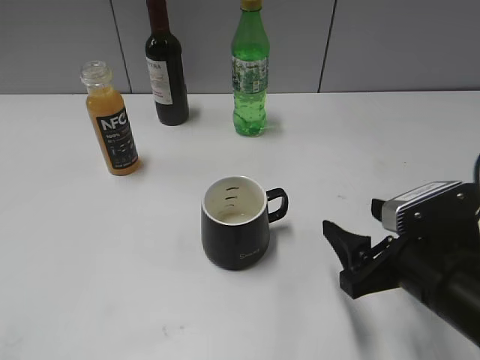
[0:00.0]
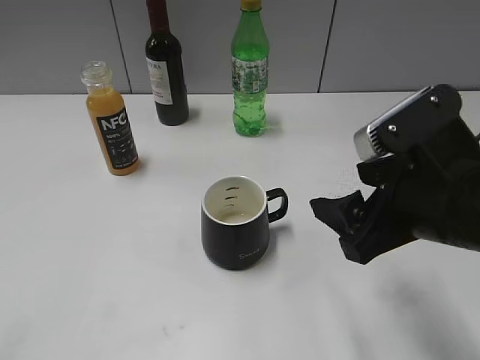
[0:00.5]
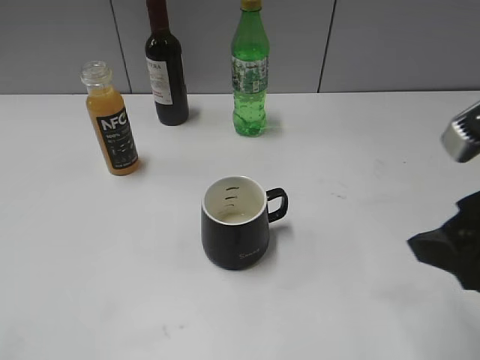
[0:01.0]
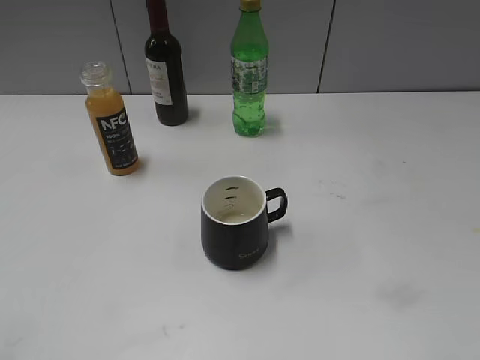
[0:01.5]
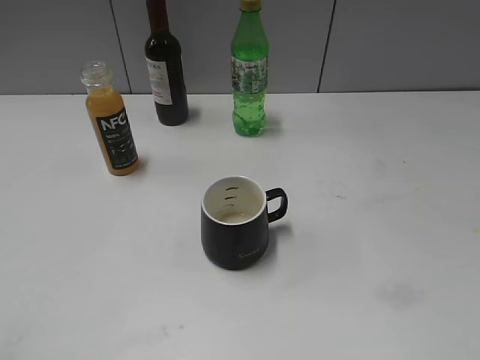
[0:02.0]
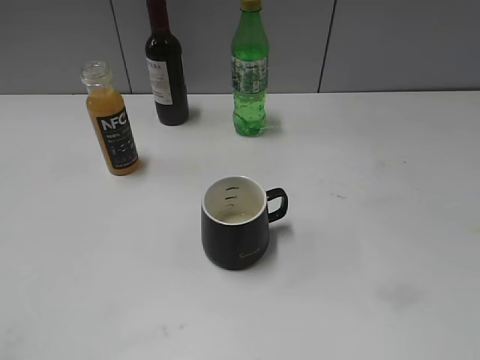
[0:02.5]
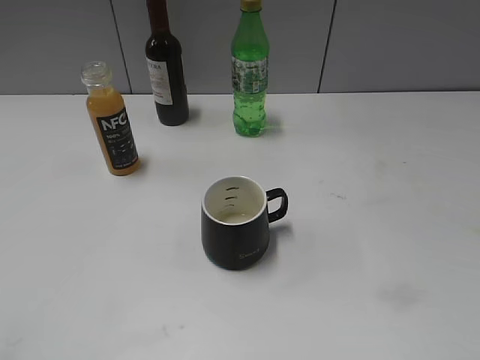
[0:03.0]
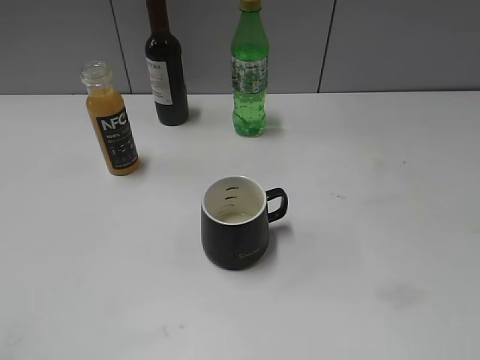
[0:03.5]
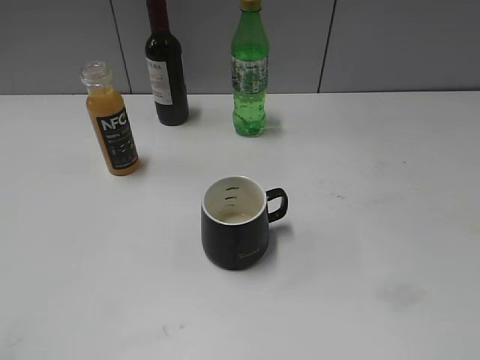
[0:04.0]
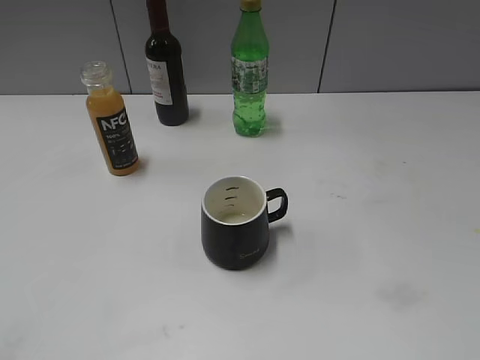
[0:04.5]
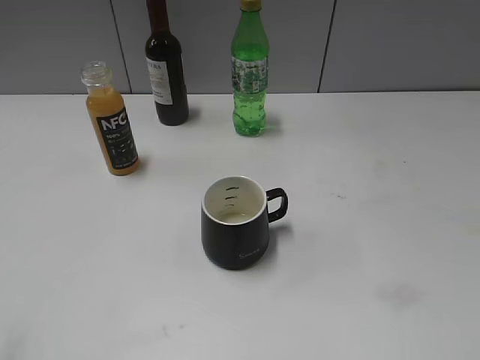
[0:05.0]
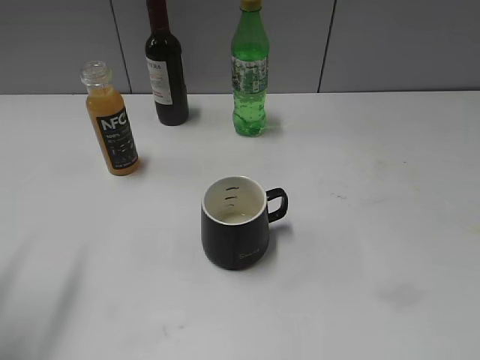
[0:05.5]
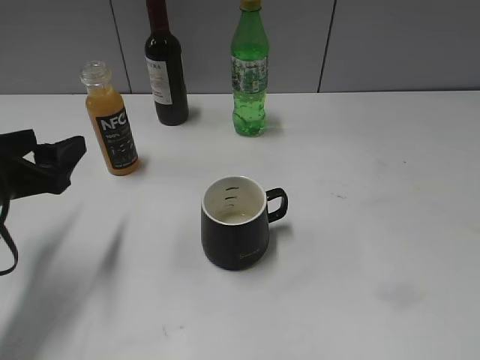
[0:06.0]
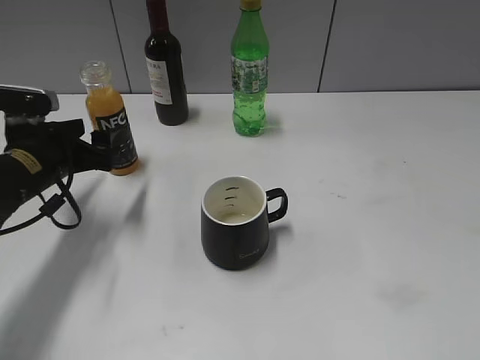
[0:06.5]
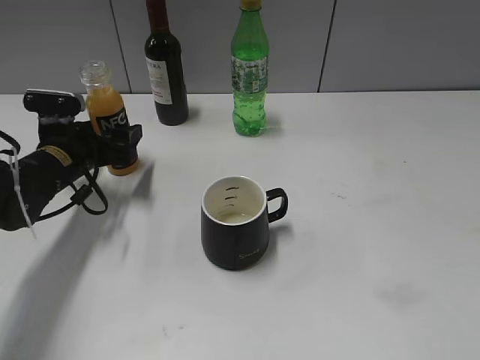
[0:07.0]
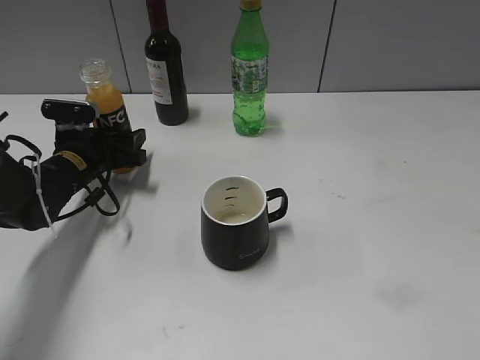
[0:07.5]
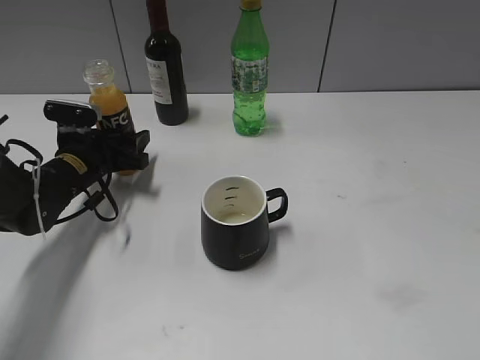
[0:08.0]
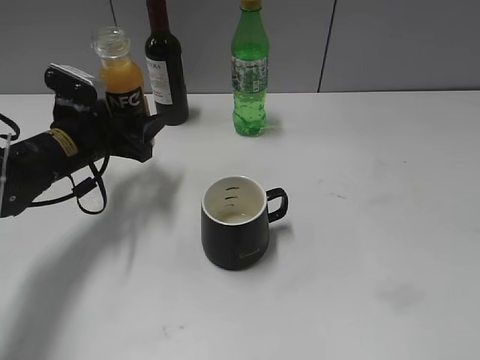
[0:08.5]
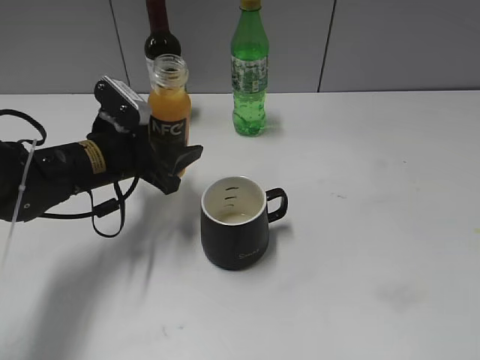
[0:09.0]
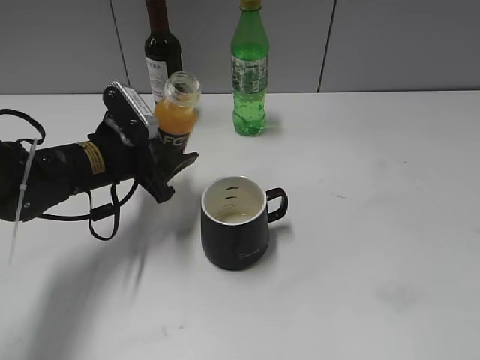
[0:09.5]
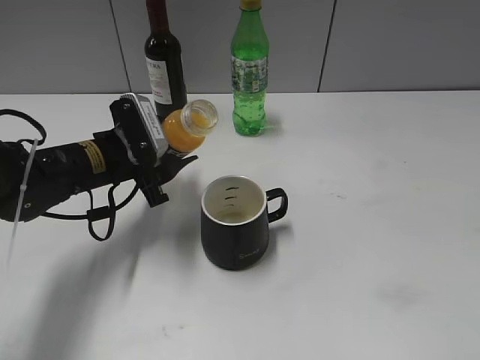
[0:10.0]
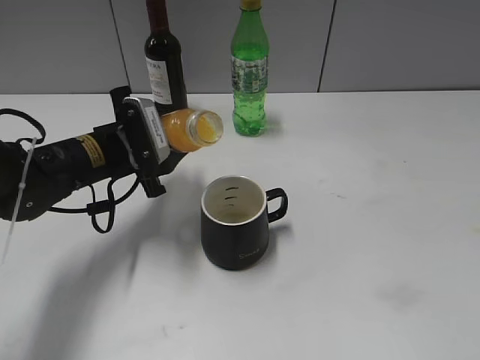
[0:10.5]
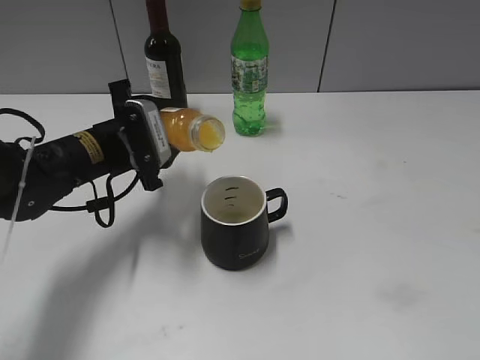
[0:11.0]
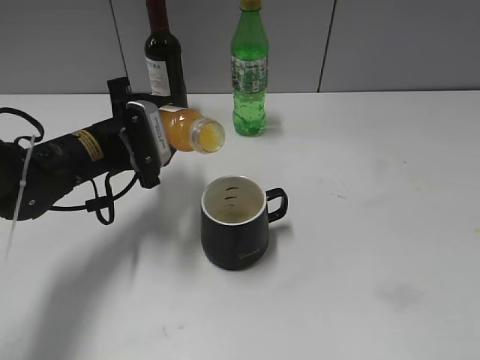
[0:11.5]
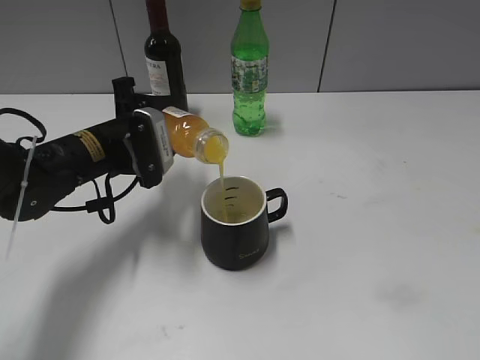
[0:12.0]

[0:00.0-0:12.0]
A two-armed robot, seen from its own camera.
Step, 0:00.0 to 0:08.0: Grasp the bottle with orange juice with left gripper.
0:00.0 to 0:02.0: The right gripper moves backward, upward and to the right, approximately 25 cm.
0:02.0 to 0:04.0: Both grippers stay put.
0:04.0 to 0:06.0: The left gripper shifts roughly 25 cm forward and downward, and opens.
0:06.0 to 0:08.0: The left gripper moves forward and downward, approximately 20 cm.
0:08.0 to 0:10.0: The left gripper travels to the right and upward by about 10 cm.

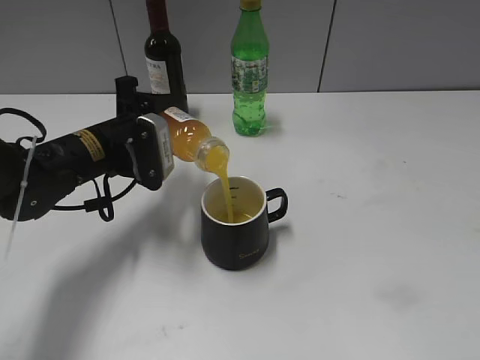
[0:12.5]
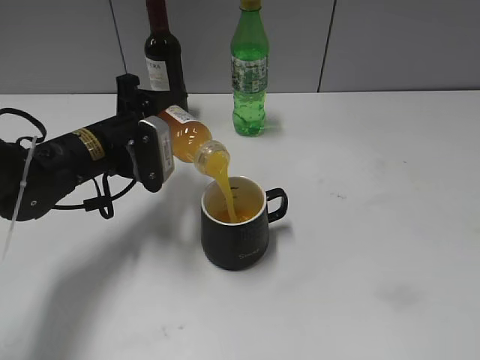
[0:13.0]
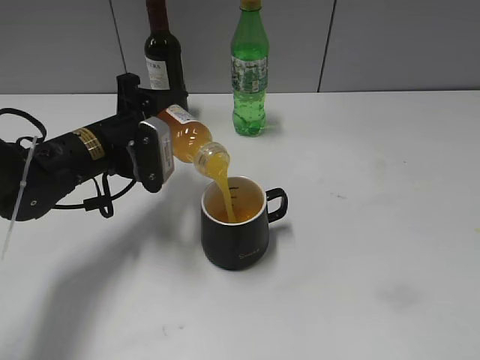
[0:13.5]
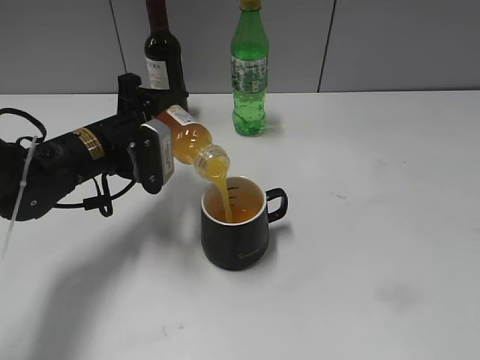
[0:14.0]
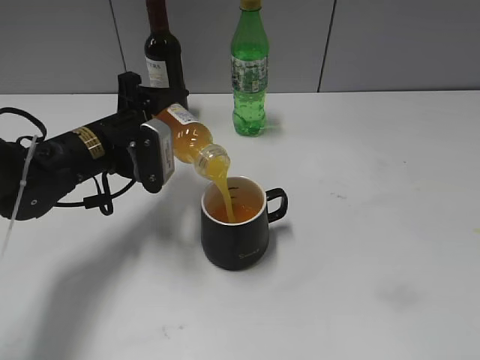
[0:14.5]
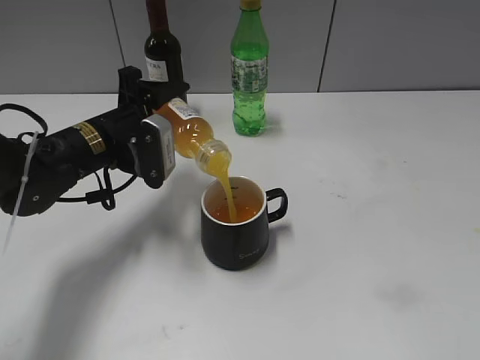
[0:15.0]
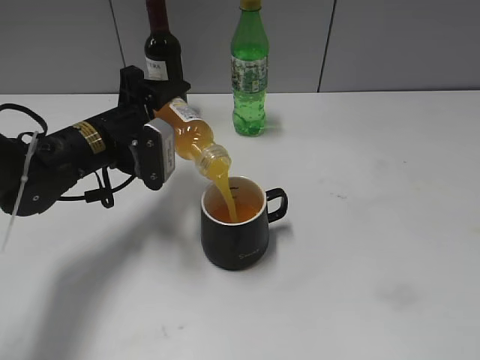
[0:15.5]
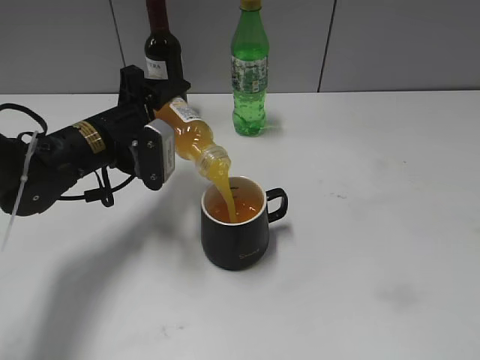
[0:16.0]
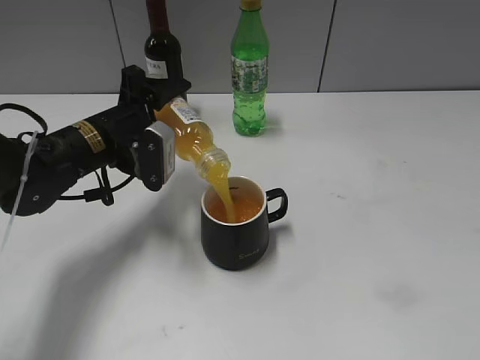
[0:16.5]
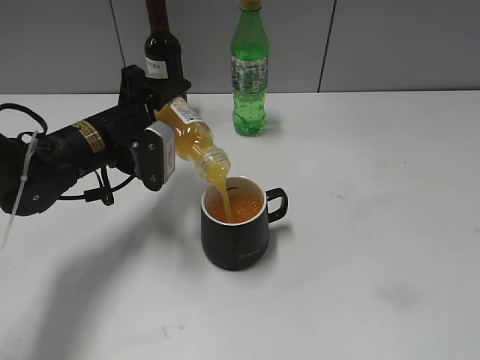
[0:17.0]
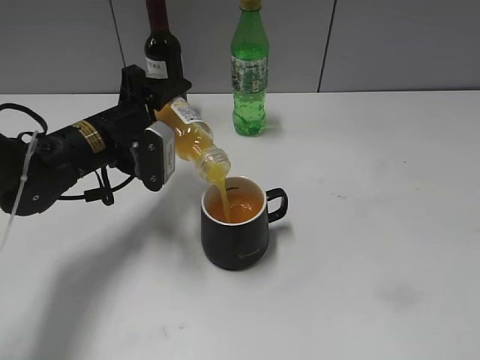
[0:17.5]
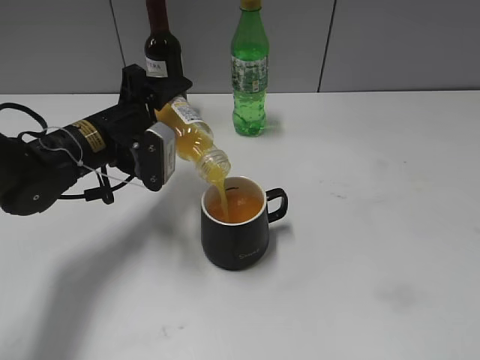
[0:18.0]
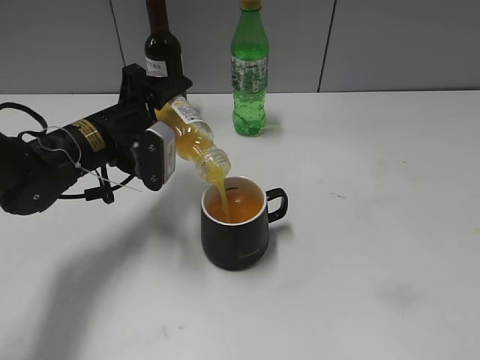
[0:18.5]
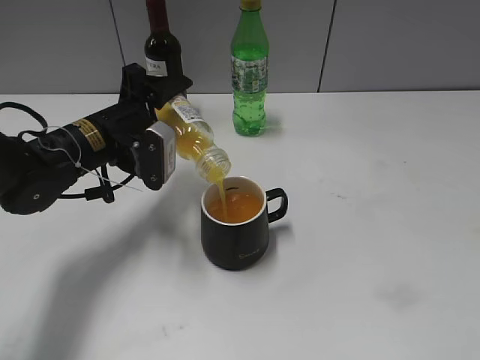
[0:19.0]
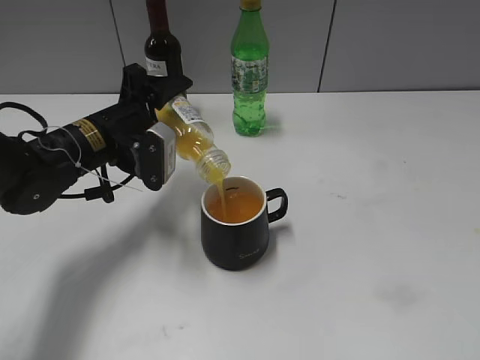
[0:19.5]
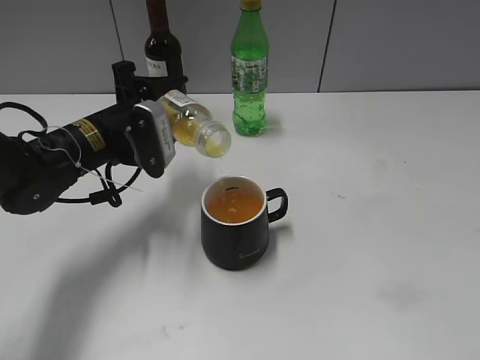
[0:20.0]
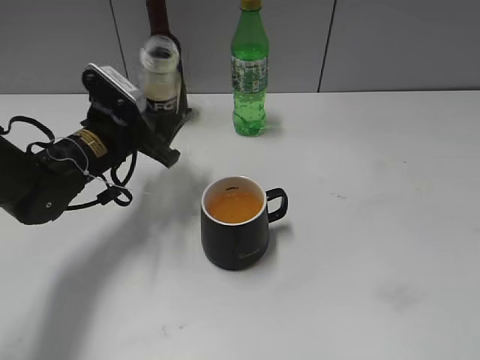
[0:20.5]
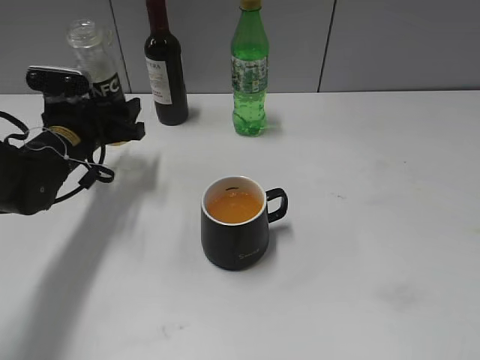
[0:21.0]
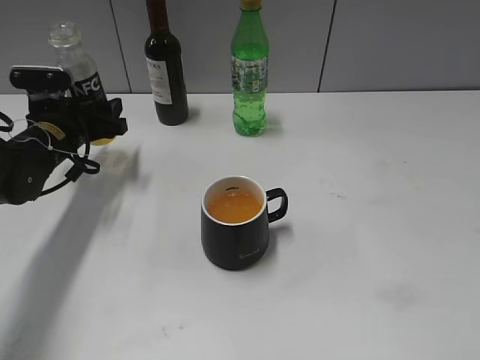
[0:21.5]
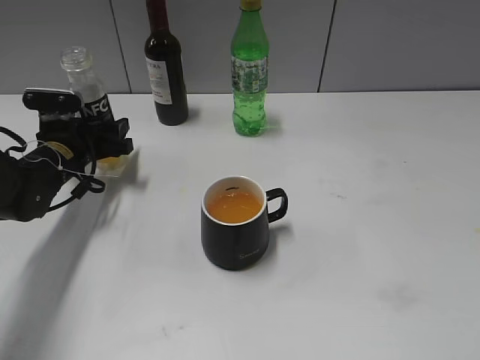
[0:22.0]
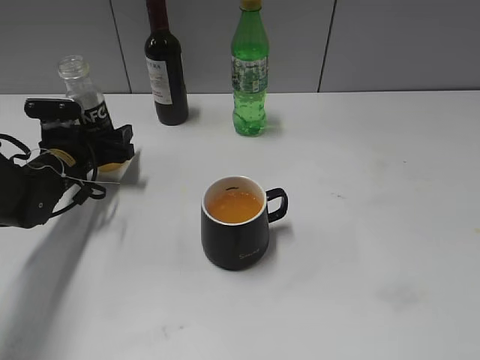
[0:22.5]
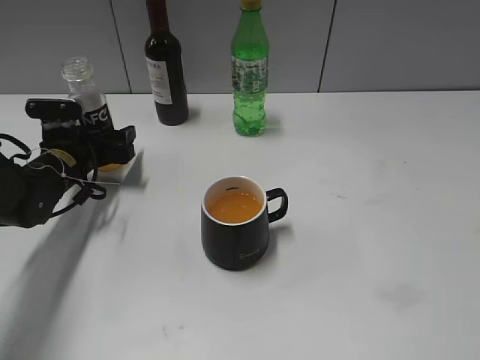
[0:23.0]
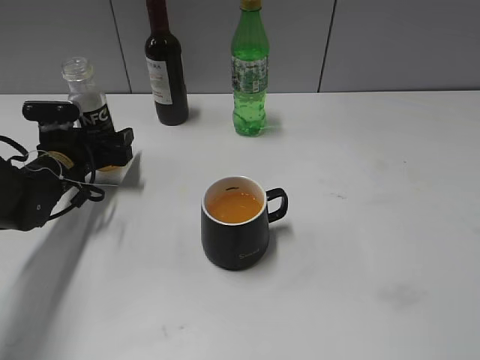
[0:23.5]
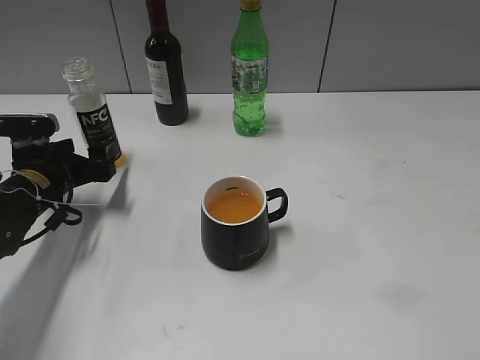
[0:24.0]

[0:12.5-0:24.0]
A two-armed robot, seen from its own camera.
Step, 0:12.5 to 0:20.0: Pour the orange juice from bottle to cup with left gripper.
Step, 0:20.5 to 0:23.0: Place the orange juice bottle on the table with left gripper.
0:12.5 to 0:16.5: The grippers move only a little.
0:16.5 to 0:18.5: Both grippers stay put.
0:18.5 to 0:20.0: The grippers make only small movements.
0:20.0 to 0:22.0: The left gripper shifts about 10 cm to the left and downward.
0:22.0 to 0:24.0: The left gripper shifts by roughly 5 cm, and opens.

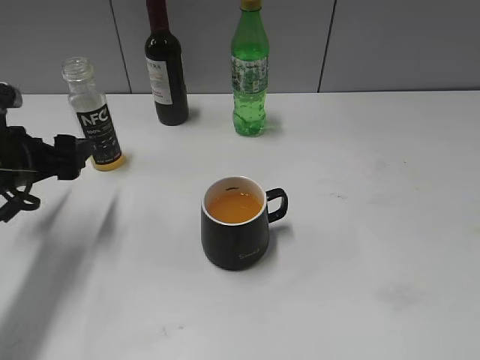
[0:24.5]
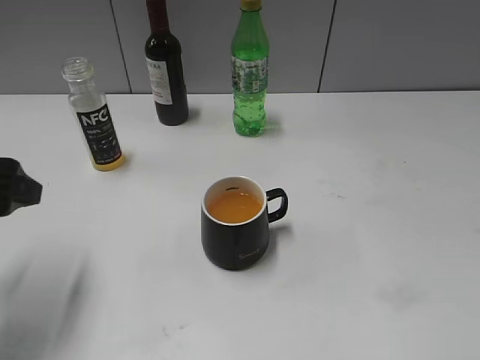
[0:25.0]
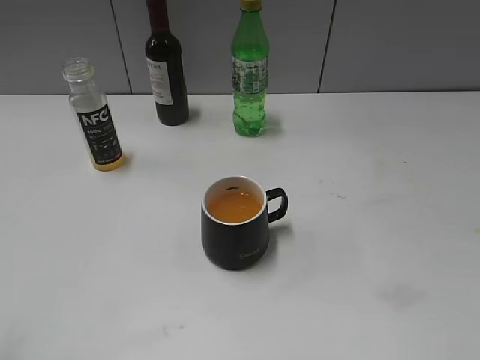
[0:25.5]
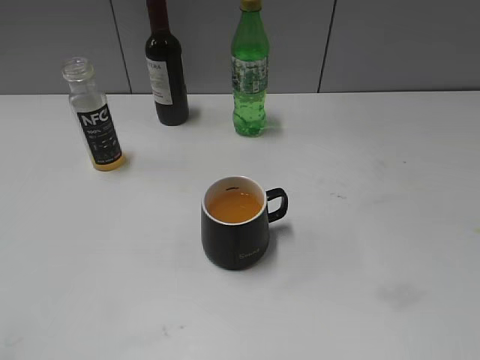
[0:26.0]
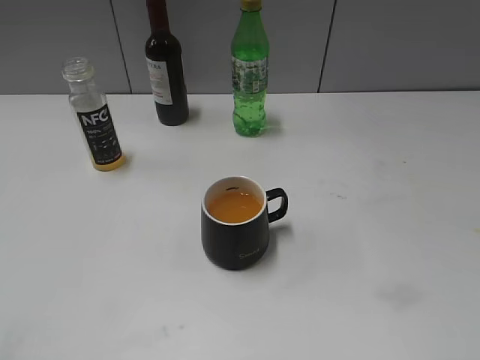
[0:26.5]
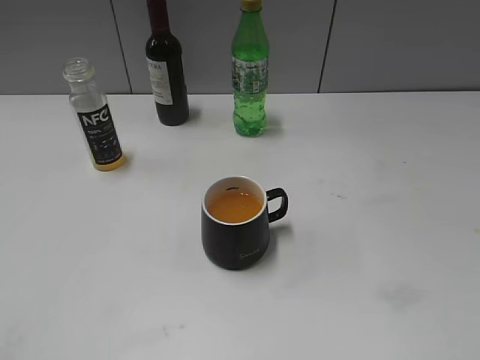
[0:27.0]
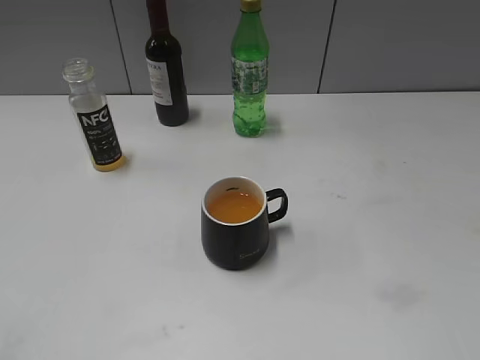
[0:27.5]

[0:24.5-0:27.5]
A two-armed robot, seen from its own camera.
0:24.5 to 0:26.0: The left gripper moves backward and upward, about 30 cm.
